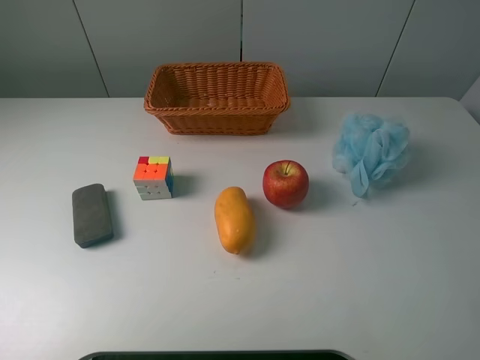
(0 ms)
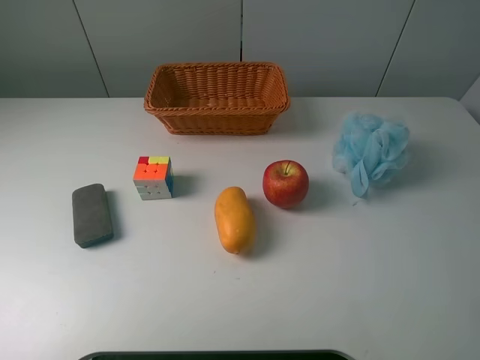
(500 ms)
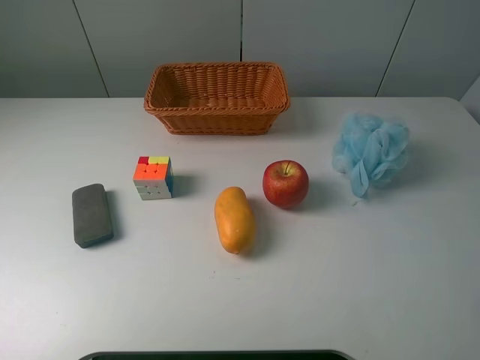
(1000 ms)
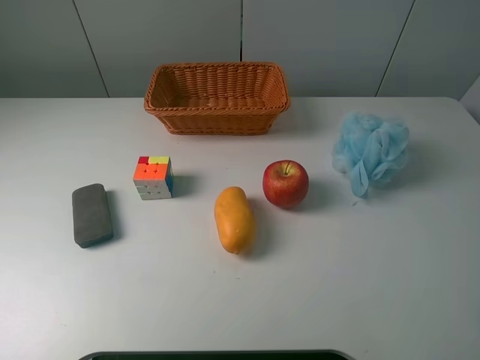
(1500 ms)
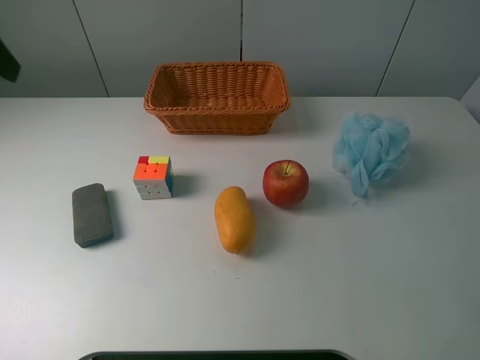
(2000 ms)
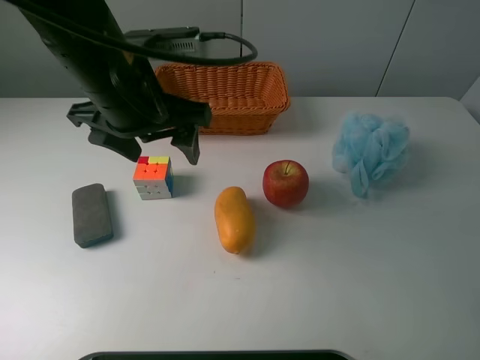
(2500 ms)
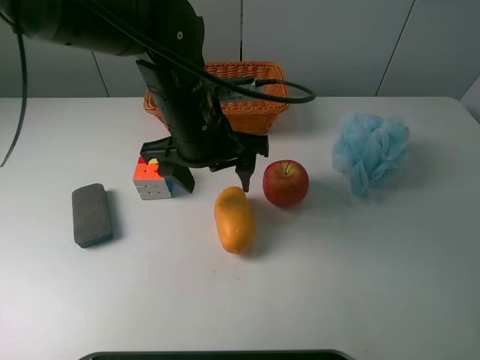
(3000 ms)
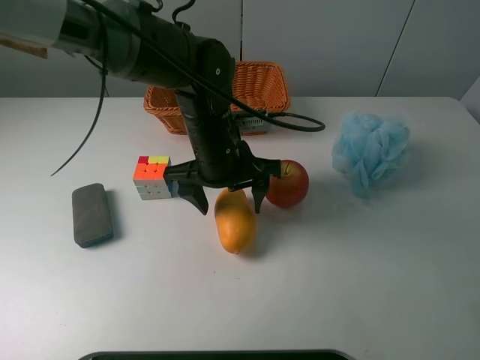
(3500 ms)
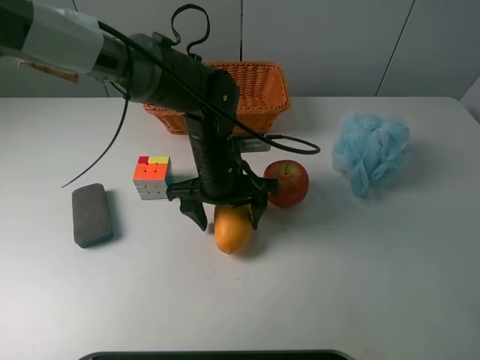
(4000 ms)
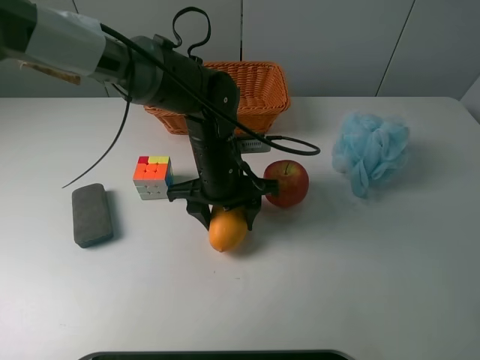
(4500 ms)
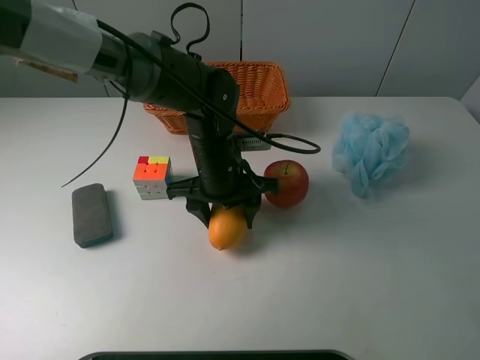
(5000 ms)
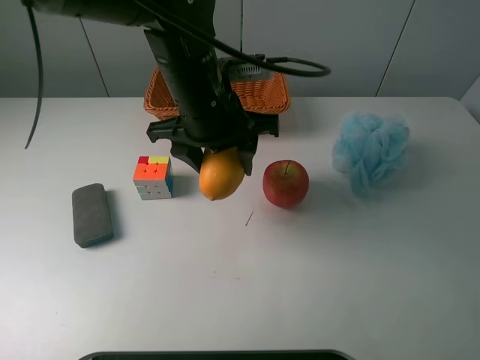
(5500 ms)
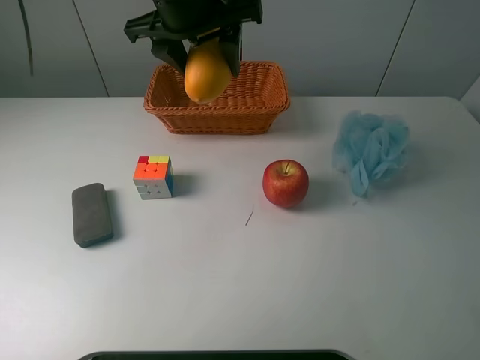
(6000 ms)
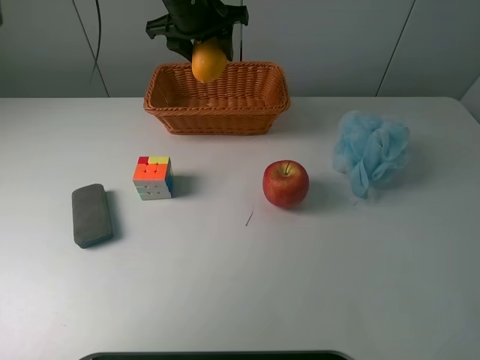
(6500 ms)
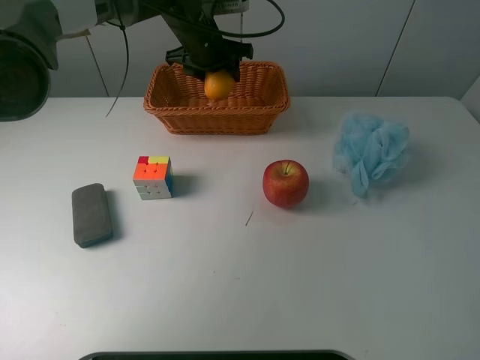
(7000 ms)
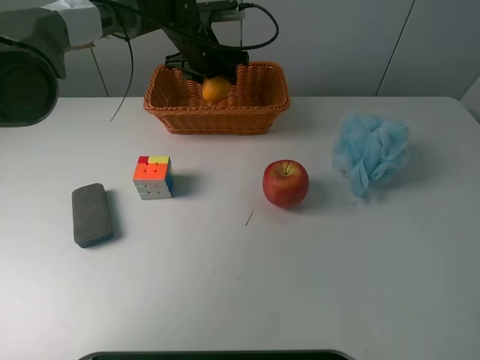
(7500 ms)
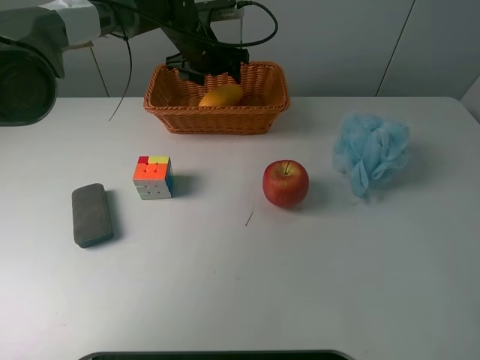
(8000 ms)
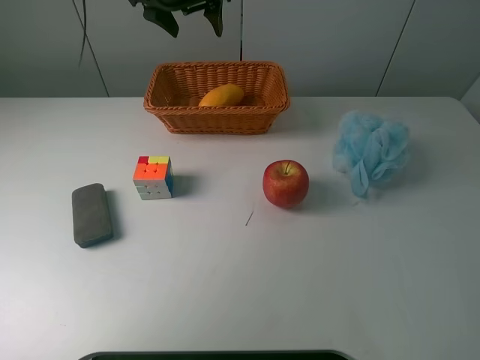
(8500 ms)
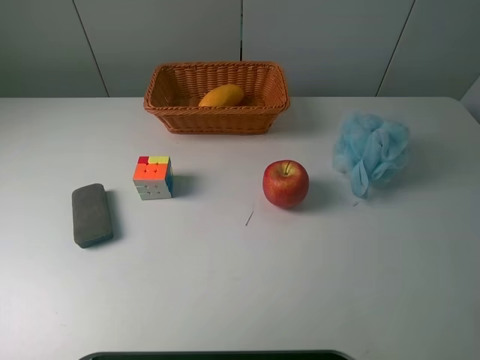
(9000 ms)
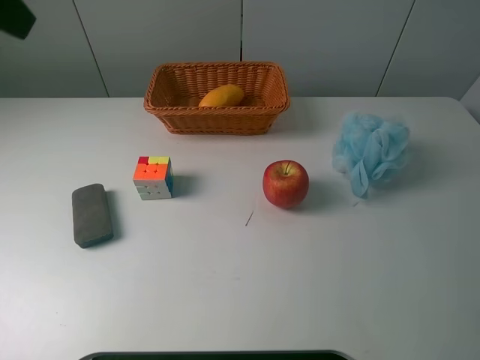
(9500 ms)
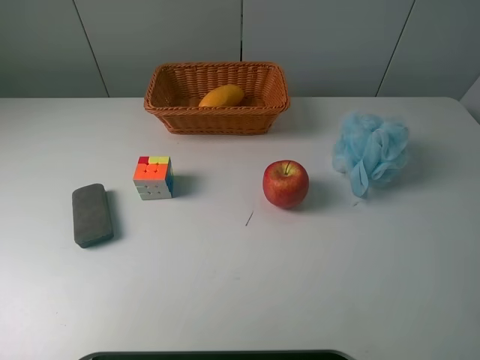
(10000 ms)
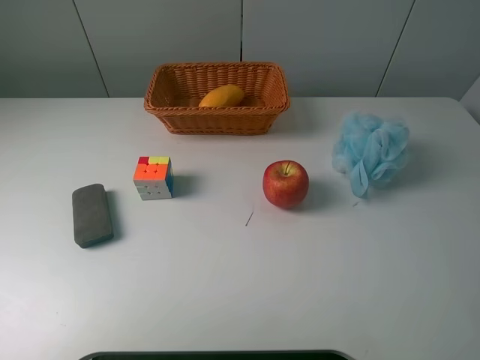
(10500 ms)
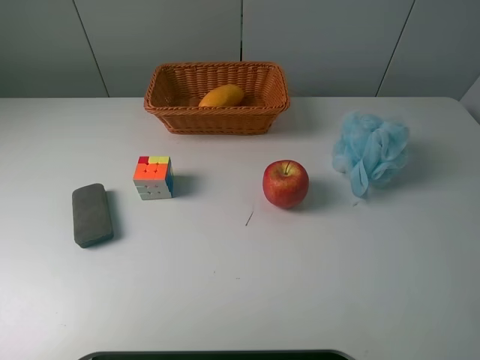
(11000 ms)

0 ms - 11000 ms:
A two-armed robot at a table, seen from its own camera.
Task of the whole recording: use a picker to grab the item closest to the apple and place it in the basket.
Step, 0 ms - 4500 ms: Grasp the mango with the left gripper.
Step, 5000 ms - 8000 ms: Place the mango into the basket with the left gripper.
0 ms - 2000 ms: The left gripper is displaced forward by roughly 25 cm.
2000 ms - 3500 ms: The left gripper moves to the right and downward, some 30 cm.
3500 ms - 5500 ms: The left gripper is displaced upward by about 10 cm, and closes up.
5500 ms - 7500 ms: The left gripper is displaced forward by some 20 cm.
7500 ms - 9000 ms: The left gripper shifts roughly 30 cm upward and backward, and opens.
